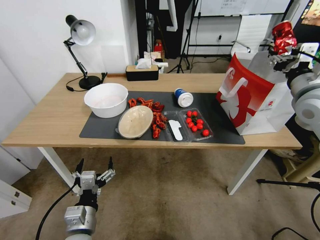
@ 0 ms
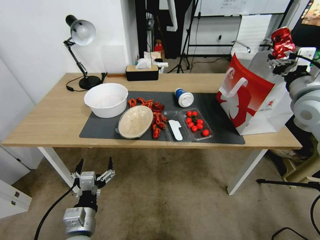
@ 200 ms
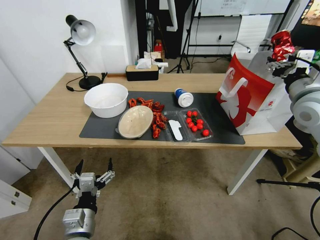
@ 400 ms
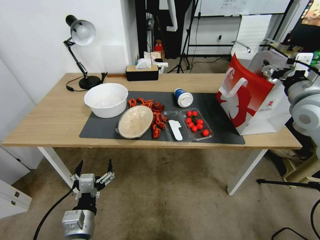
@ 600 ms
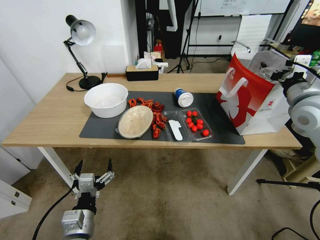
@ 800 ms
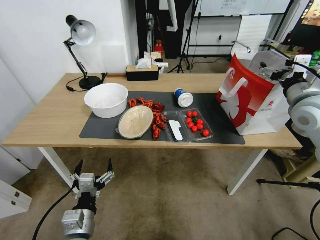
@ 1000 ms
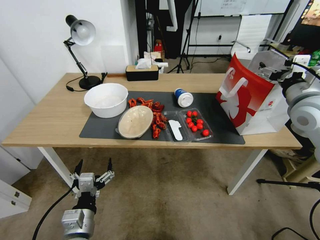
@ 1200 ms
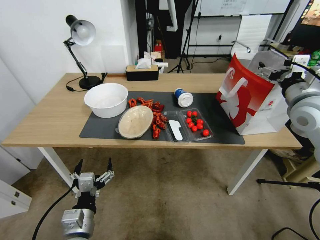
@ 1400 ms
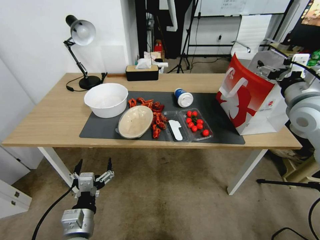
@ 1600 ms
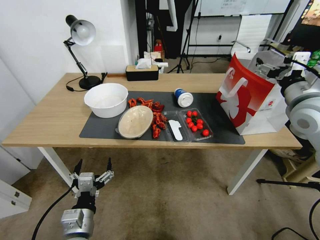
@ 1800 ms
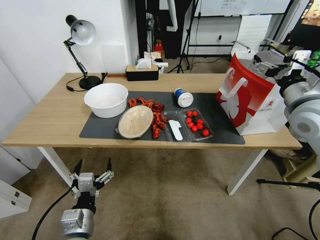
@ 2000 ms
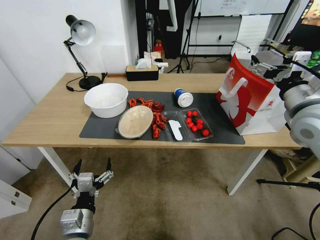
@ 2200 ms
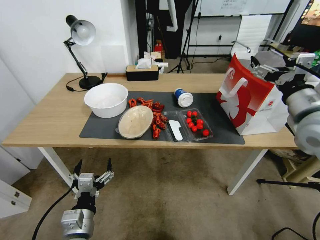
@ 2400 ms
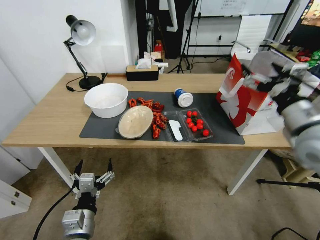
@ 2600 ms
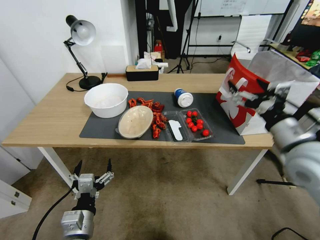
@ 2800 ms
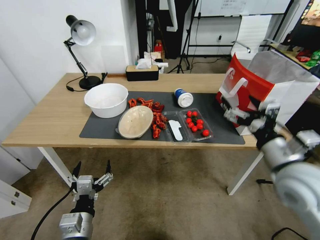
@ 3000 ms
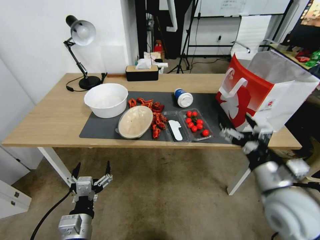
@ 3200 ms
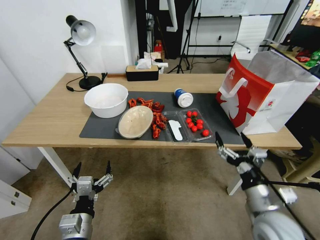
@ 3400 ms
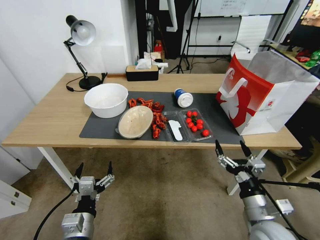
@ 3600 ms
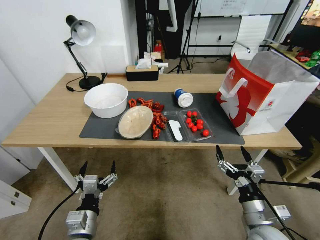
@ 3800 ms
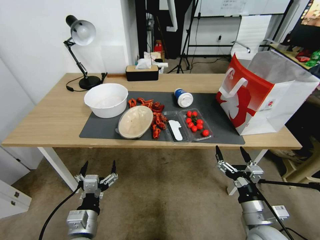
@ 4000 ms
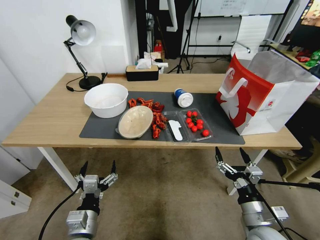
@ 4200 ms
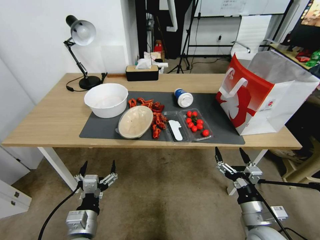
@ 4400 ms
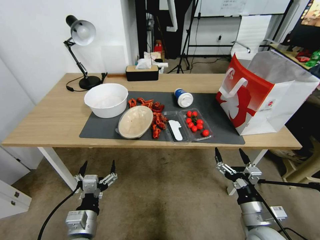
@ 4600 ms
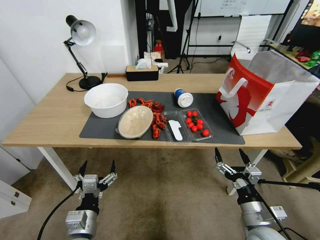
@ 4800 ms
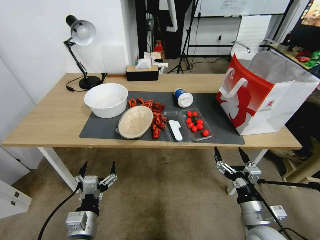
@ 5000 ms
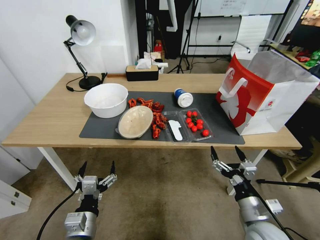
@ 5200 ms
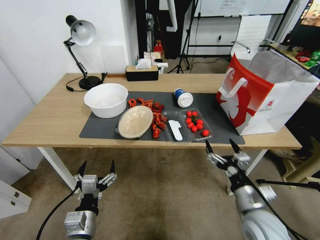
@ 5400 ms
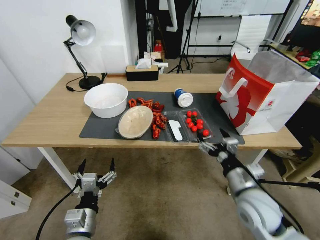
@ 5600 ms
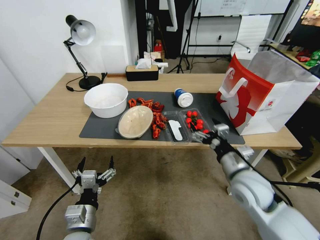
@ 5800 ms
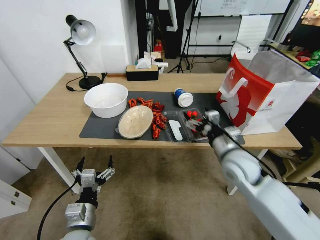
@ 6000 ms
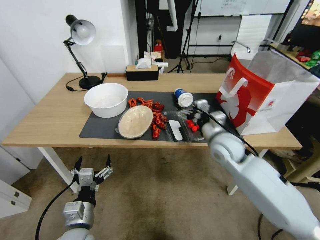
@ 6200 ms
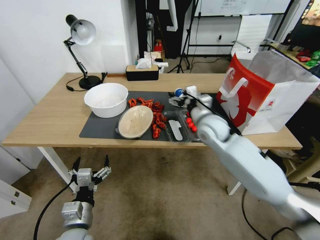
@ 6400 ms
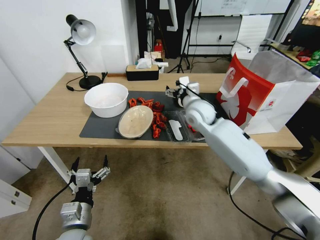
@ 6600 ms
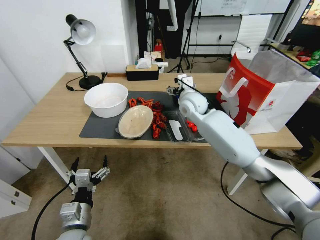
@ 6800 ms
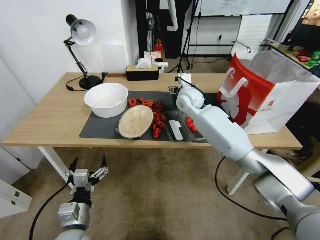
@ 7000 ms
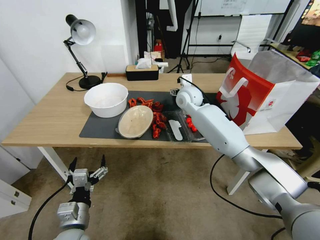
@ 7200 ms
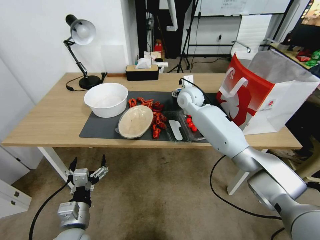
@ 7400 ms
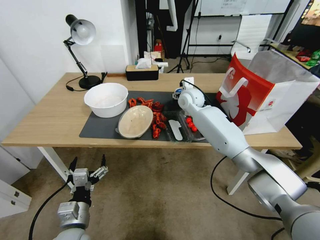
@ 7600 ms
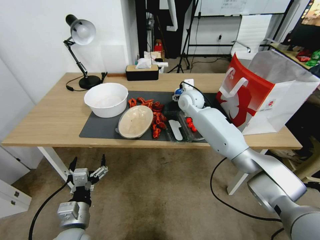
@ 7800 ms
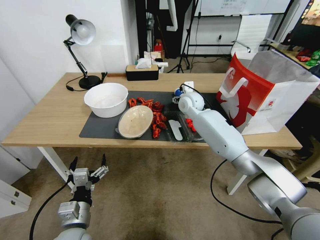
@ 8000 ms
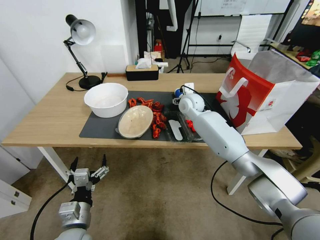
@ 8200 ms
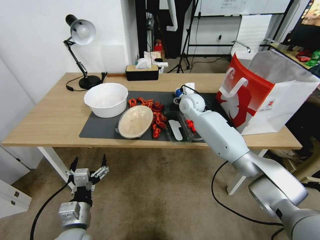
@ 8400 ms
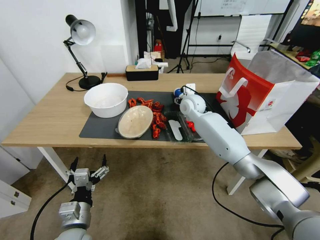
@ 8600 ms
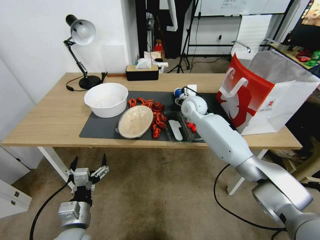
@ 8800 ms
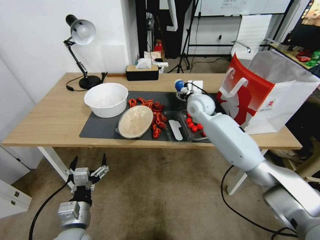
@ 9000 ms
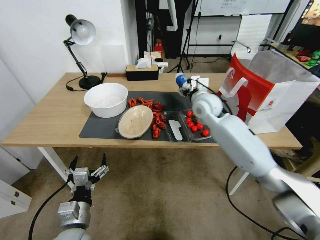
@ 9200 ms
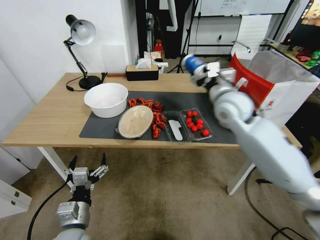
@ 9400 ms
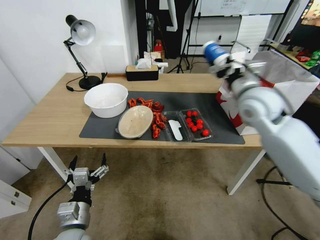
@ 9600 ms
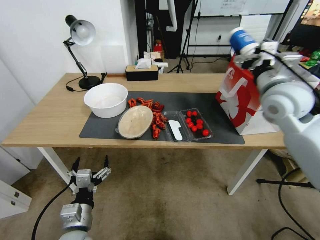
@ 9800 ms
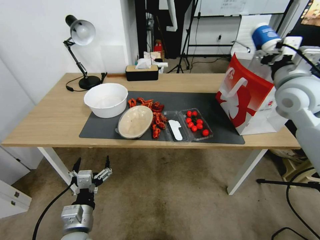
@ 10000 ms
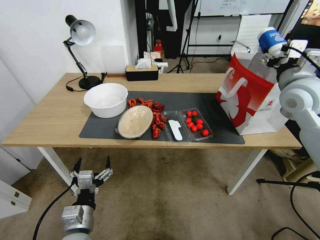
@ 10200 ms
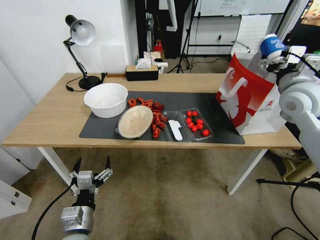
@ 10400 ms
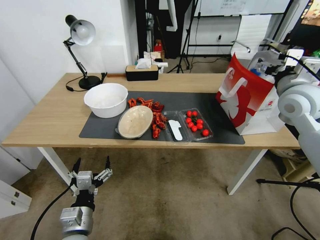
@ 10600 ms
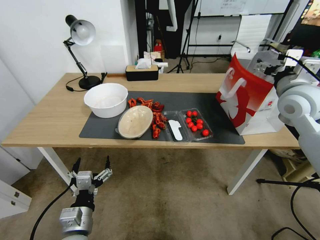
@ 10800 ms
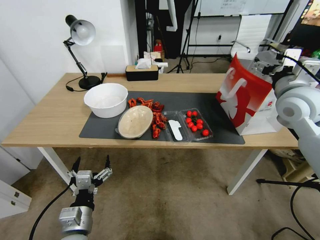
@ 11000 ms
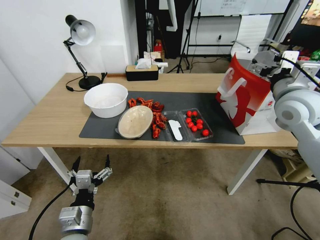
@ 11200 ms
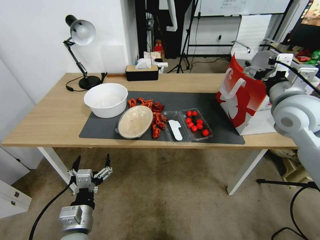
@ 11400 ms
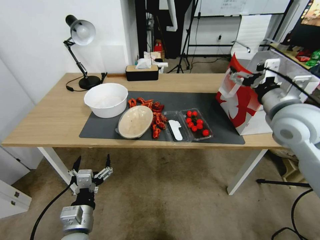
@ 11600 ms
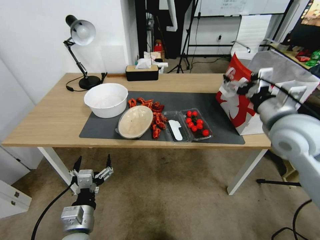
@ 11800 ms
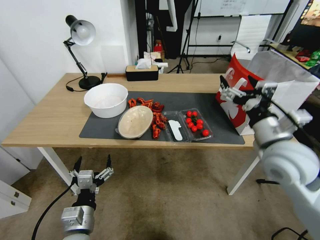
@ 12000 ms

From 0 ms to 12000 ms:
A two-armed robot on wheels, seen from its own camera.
From 0 ms to 1600 ms: The right gripper opens up.
From 1600 ms to 3000 ms: The right gripper travels backward, downward and to the left by some 15 cm.
From 3000 ms to 4400 ms: The right gripper heads downward and backward, covering roughly 20 cm.
From 4400 ms to 6000 ms: The right gripper goes some 20 cm forward and upward.
From 6000 ms to 7600 ms: The right gripper is displaced forward and to the left by about 25 cm.
From 7600 ms to 9000 ms: There are only small adjustments of the grippers.
From 9000 ms to 10400 ms: The right gripper moves to the right, upward and backward, approximately 30 cm.
From 10400 ms to 12000 ms: The right gripper shifts about 15 cm backward, downward and to the left.

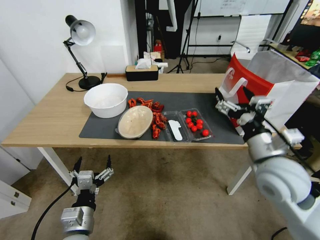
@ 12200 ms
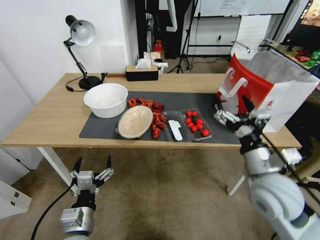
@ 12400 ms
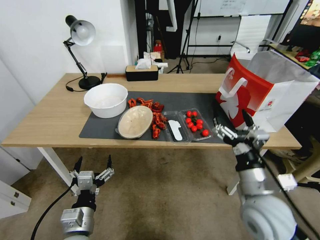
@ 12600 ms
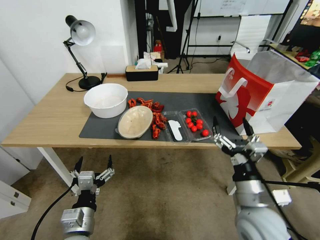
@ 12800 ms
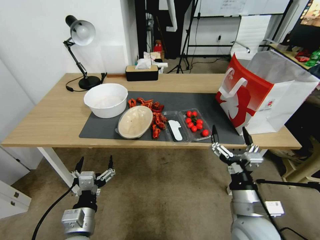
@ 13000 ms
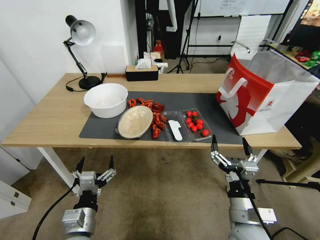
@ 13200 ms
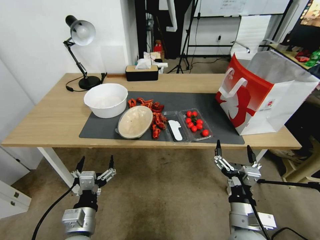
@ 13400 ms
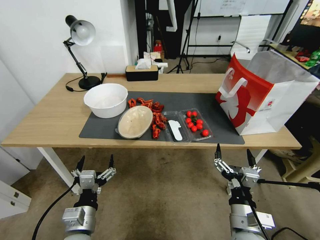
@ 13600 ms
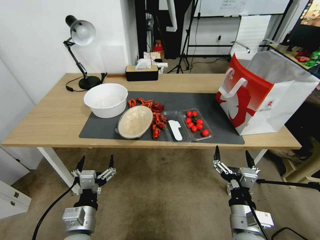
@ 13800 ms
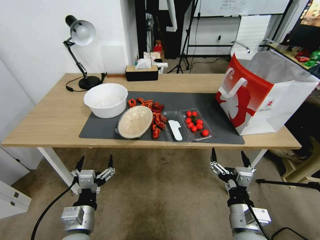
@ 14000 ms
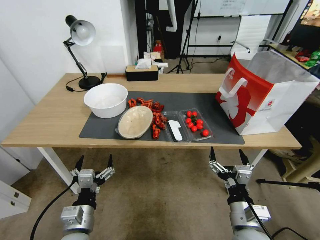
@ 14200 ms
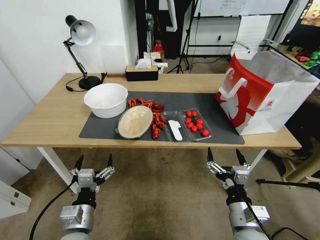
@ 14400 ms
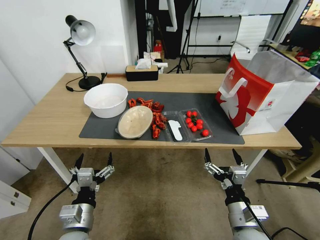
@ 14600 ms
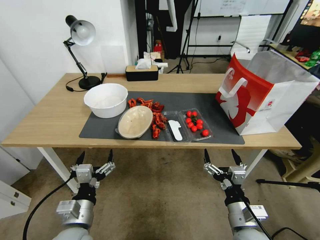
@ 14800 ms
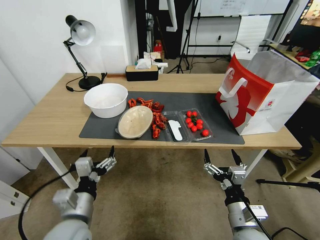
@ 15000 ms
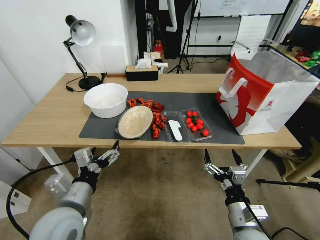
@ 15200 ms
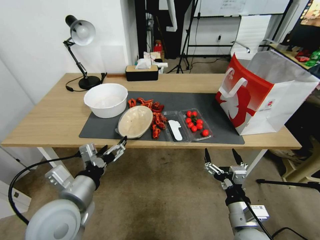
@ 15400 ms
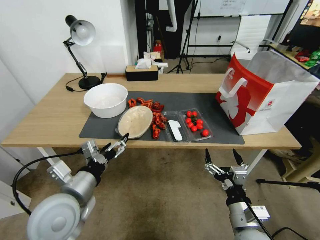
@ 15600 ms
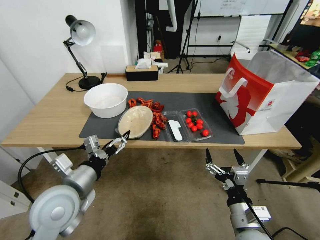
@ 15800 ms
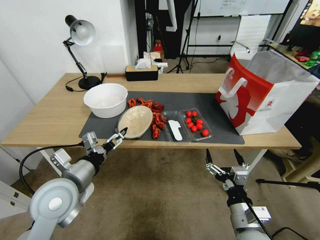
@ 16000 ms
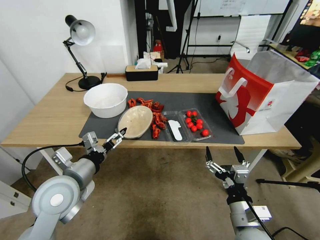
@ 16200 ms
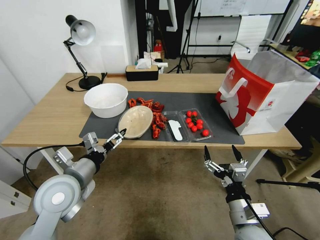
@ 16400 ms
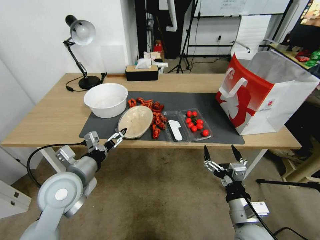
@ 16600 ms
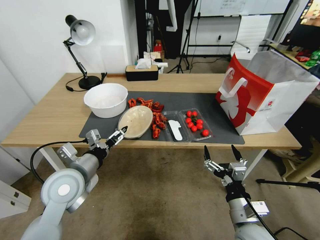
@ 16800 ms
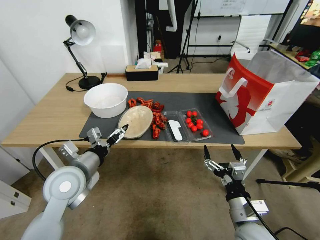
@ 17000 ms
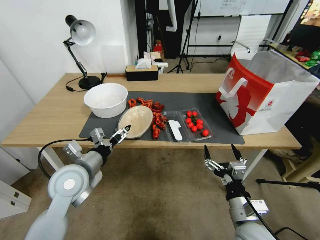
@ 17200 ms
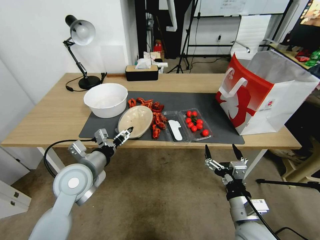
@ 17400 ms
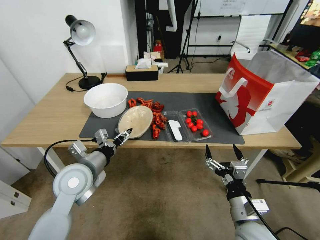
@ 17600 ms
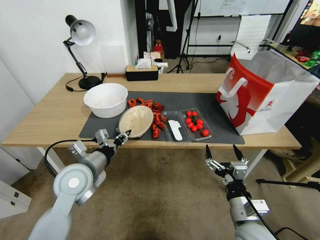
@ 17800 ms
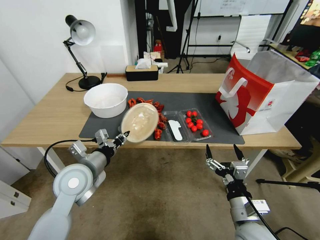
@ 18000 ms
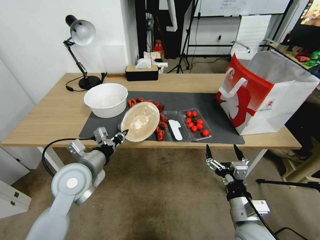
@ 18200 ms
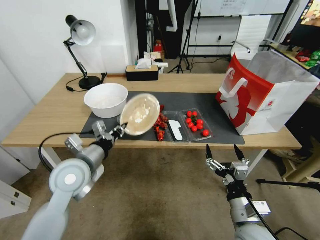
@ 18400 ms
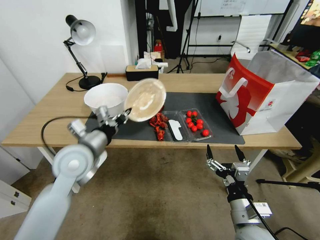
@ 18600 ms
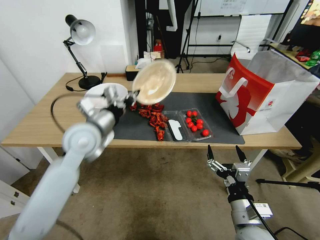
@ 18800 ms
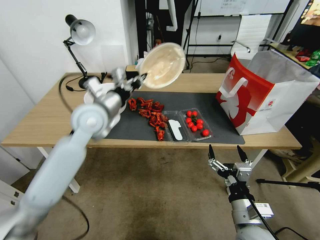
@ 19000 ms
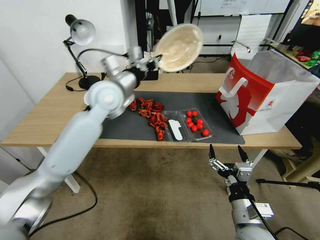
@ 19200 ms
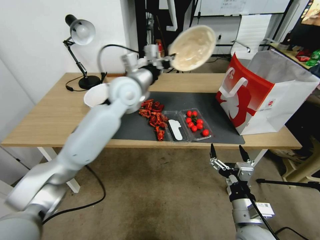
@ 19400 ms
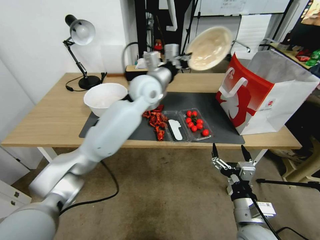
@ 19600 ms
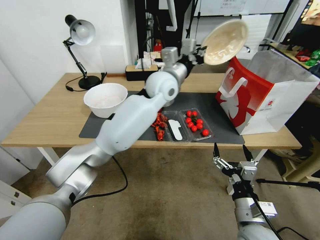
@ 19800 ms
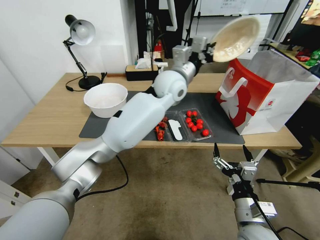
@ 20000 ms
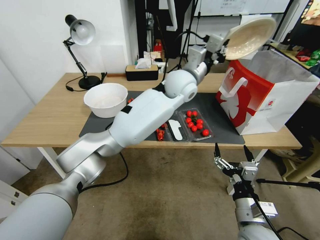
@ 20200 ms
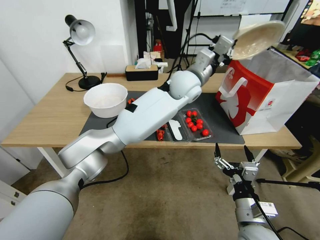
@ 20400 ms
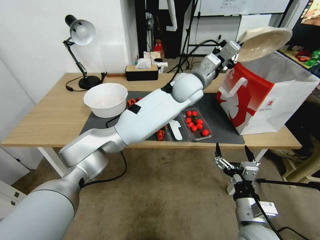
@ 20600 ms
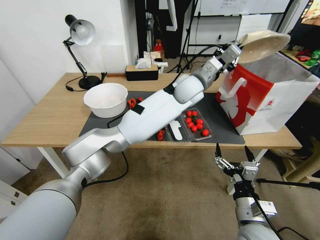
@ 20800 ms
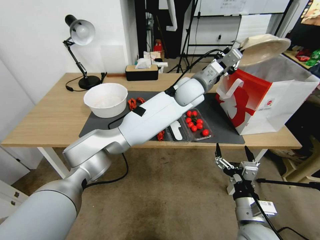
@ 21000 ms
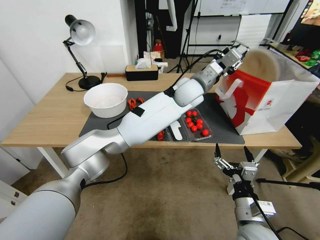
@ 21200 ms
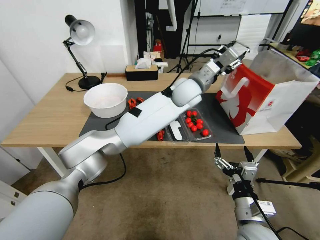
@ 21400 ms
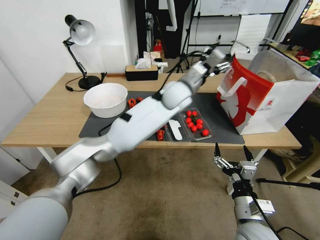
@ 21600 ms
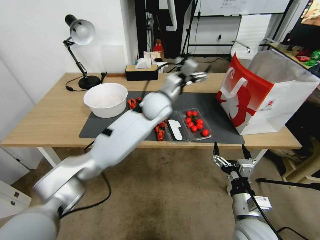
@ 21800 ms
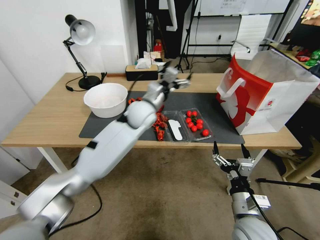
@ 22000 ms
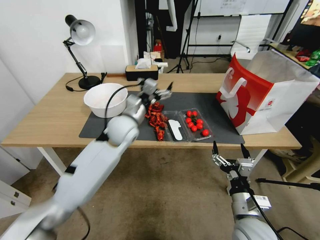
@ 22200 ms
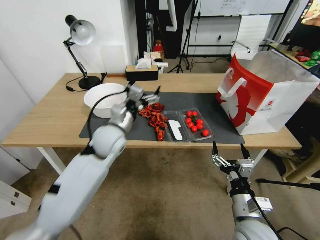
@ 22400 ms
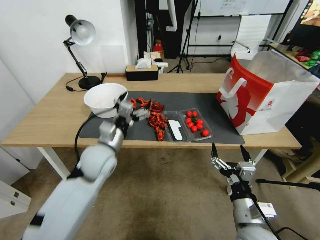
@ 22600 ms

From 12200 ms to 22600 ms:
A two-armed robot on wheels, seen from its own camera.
From 12200 ms to 13600 ms: The right gripper shifts some 20 cm downward, backward and to the left.
From 13600 ms to 15200 ms: The left gripper shifts some 10 cm upward.
From 15200 ms to 16600 ms: The left gripper is displaced forward by about 10 cm.
From 16600 ms to 18200 ms: The left gripper closes.
From 18200 ms to 19600 ms: The left gripper travels forward, to the right and upward by roughly 35 cm.
From 19600 ms to 21200 ms: The left gripper heads to the right, covering some 15 cm.
From 21200 ms to 22600 ms: The left gripper is displaced to the left, backward and downward by roughly 35 cm, and opens up.
